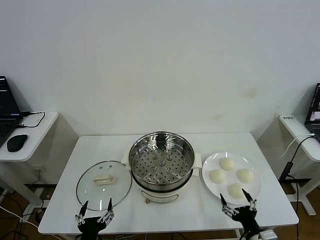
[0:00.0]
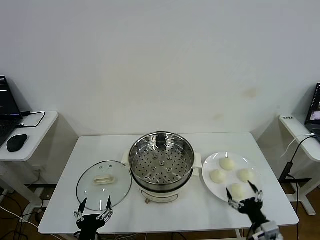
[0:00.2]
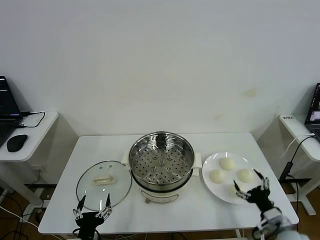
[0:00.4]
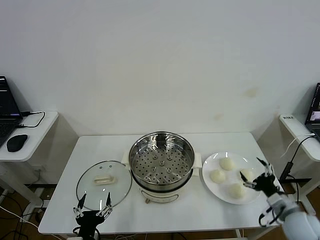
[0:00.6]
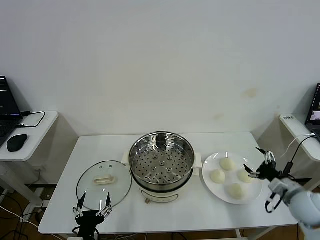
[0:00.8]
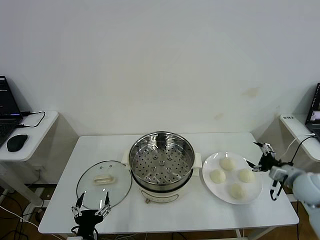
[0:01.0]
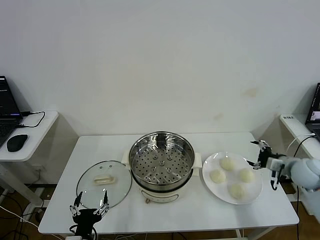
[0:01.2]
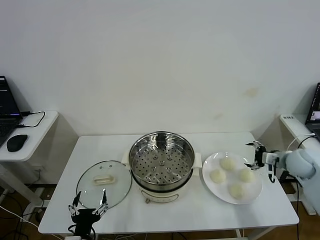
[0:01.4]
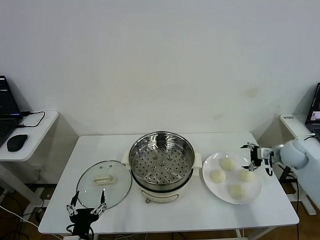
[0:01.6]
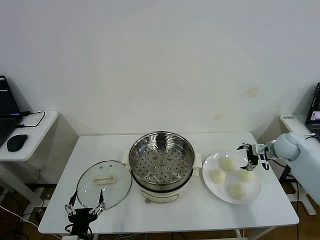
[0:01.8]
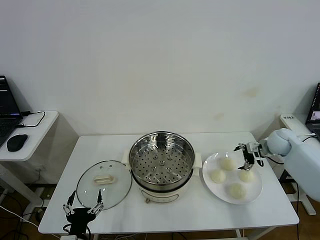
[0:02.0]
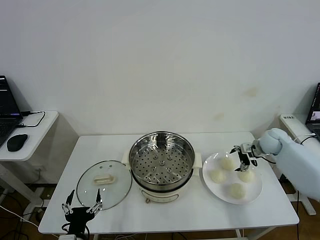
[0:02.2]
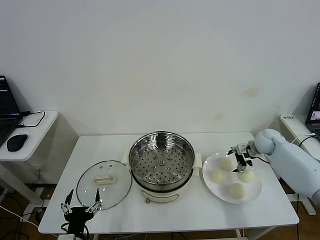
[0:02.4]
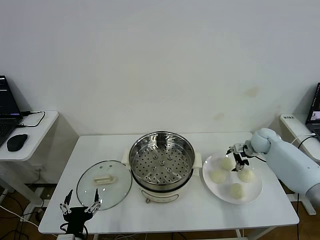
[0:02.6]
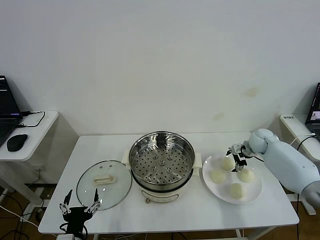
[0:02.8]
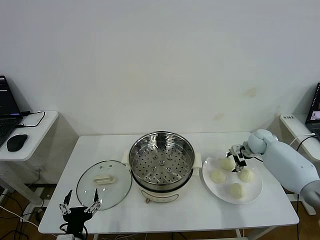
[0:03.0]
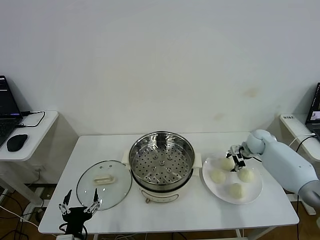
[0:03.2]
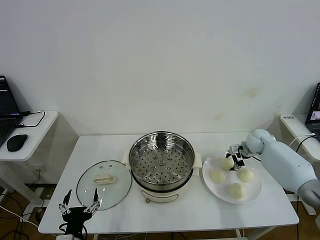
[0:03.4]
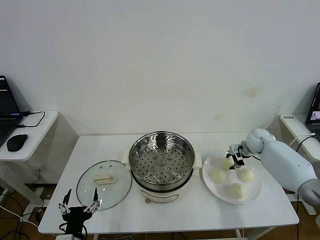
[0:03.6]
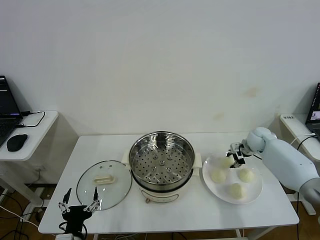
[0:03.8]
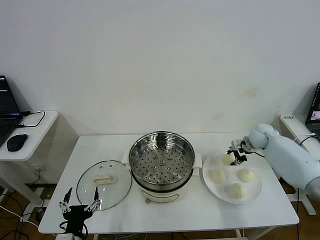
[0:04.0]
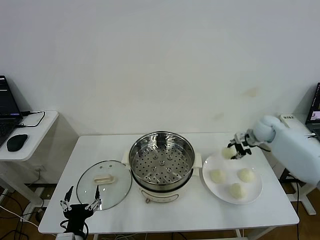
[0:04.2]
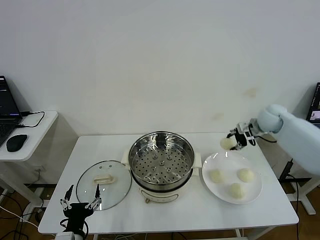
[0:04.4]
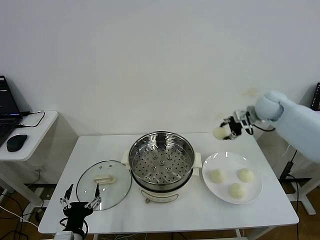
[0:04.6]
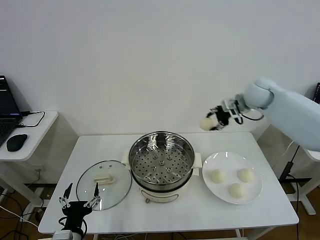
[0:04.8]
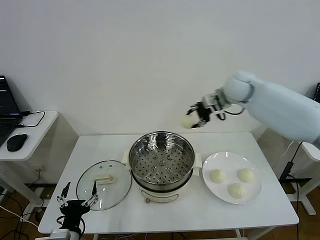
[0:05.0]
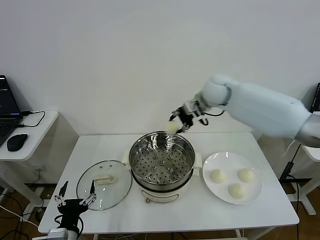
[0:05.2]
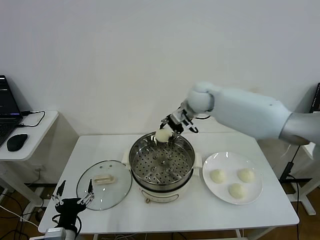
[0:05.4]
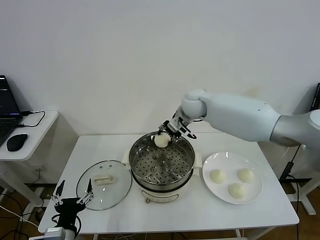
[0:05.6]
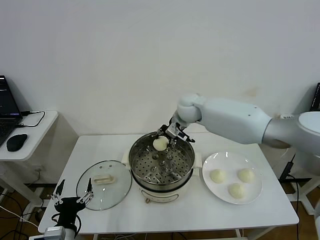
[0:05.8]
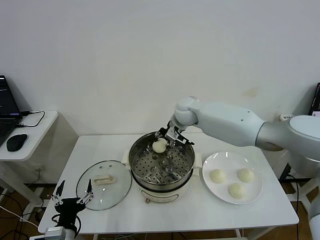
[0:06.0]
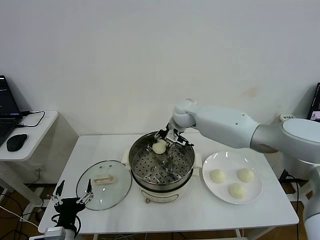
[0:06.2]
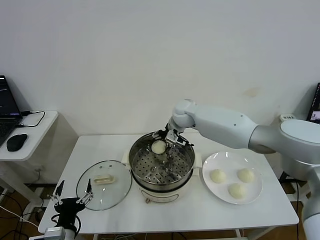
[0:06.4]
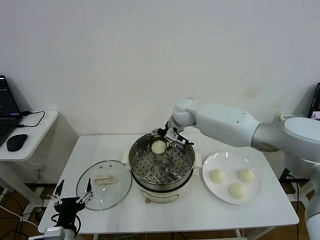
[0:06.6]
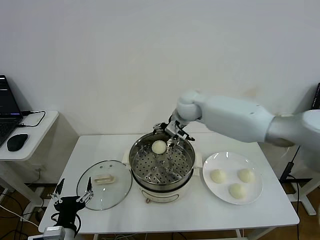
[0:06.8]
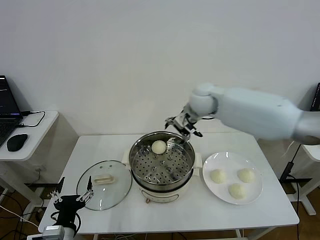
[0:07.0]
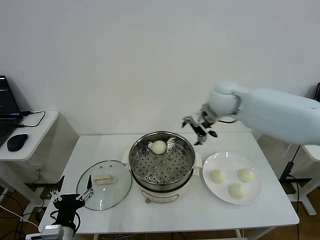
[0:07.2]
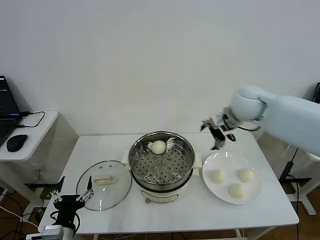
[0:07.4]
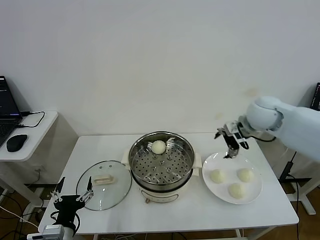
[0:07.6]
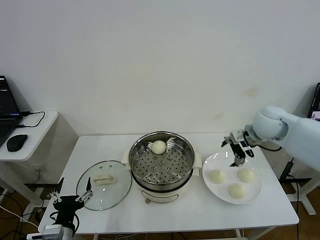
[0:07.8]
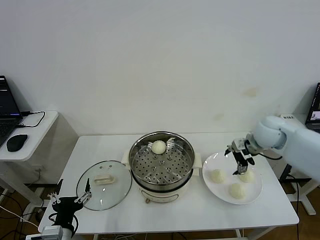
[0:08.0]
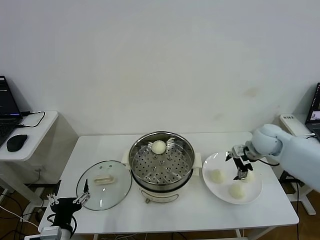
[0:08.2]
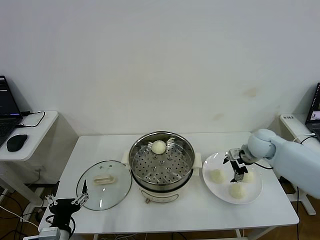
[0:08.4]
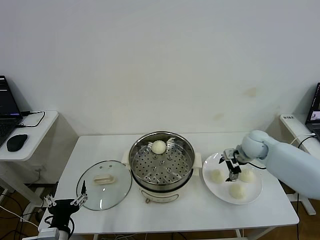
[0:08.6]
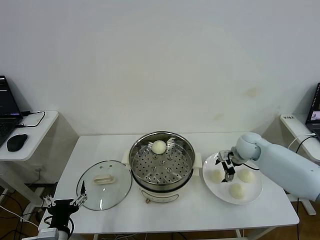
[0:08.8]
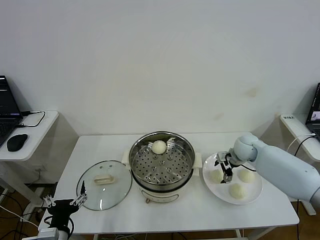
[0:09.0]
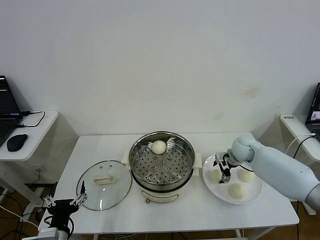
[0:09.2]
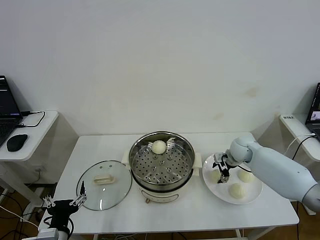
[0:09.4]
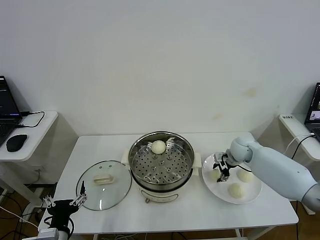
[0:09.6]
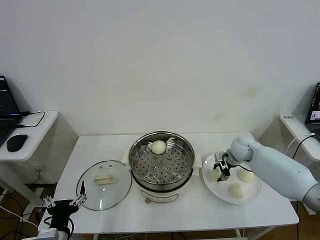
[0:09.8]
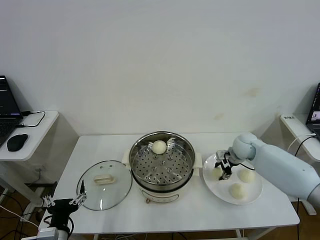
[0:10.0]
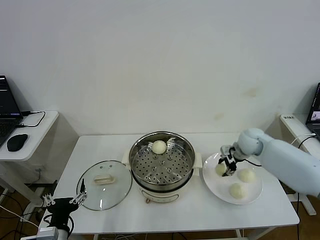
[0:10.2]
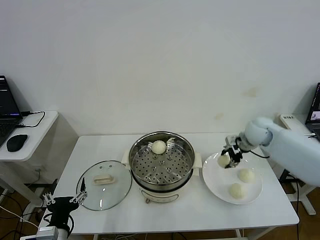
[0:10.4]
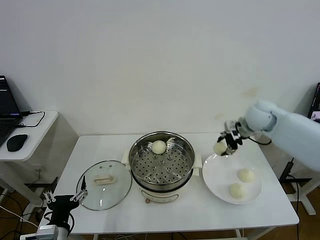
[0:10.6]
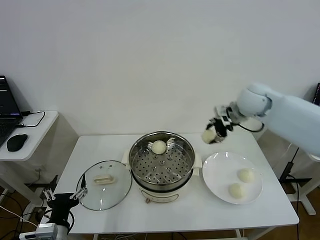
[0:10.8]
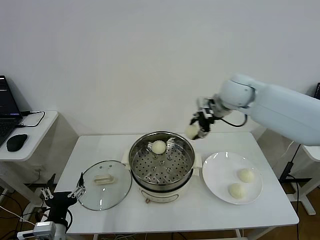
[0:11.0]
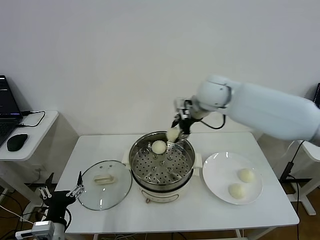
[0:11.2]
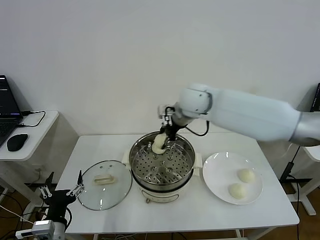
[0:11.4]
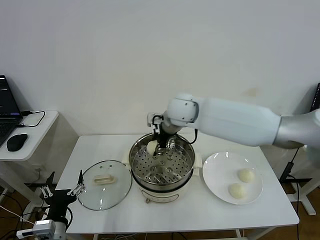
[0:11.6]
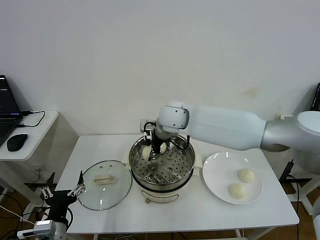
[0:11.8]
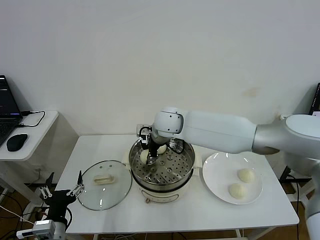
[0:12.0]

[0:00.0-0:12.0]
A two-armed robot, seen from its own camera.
Step, 0.0 to 3.6 s: Grasp the baozi in the plate with right gripper.
Step, 3.8 to 6.6 s: Place the baozi on the steamer with right gripper.
Step, 6.8 to 9.8 s: Grasp the baozi in the plate with right gripper.
1.6 to 3.0 s: The right gripper heads forward, to the left and downward, covering approximately 15 cm, and closes up.
3.0 to 4.4 s: The right gripper travels upward by approximately 15 cm, and closes its fingers.
4.4 to 6.0 s: The right gripper shifts some 30 cm to the left.
6.0 to 7.6 s: The right gripper goes approximately 25 cm to the right and backward, and opens up.
7.6 to 9.0 s: The right gripper shifts approximately 20 cm downward.
9.0 to 10.4 s: The right gripper shifts approximately 10 cm upward, and closes.
10.4 to 12.0 s: The right gripper is displaced to the left by some 30 cm.

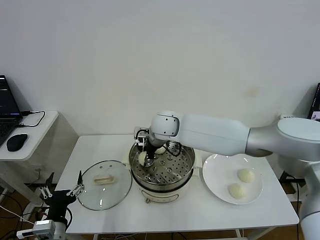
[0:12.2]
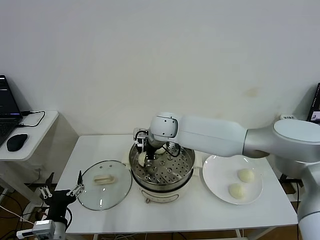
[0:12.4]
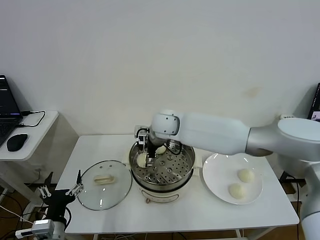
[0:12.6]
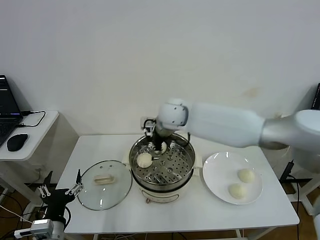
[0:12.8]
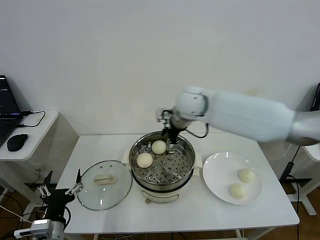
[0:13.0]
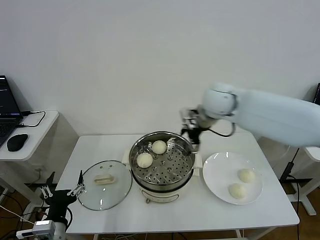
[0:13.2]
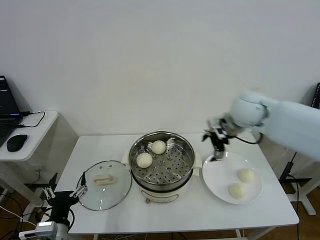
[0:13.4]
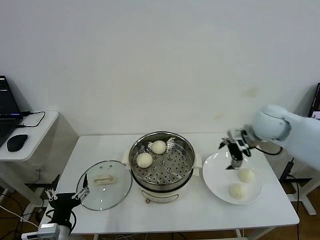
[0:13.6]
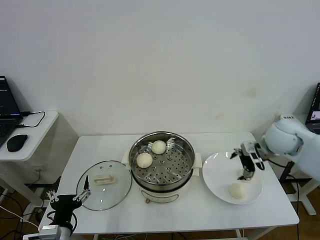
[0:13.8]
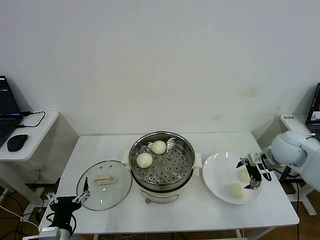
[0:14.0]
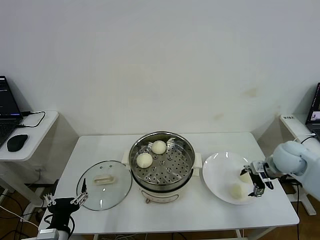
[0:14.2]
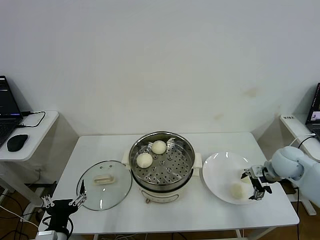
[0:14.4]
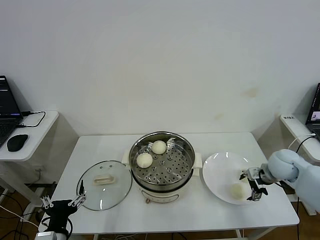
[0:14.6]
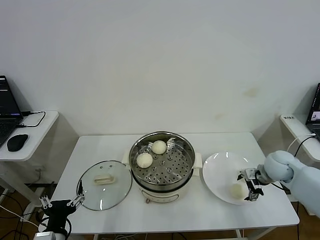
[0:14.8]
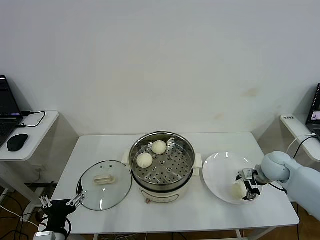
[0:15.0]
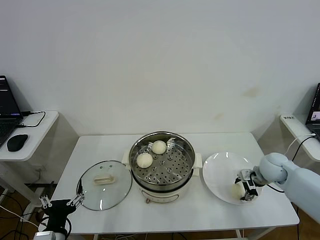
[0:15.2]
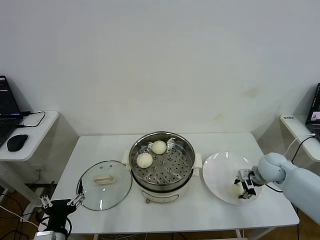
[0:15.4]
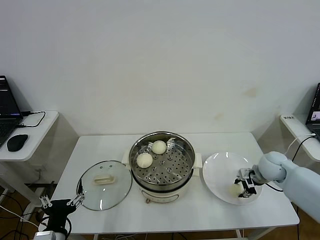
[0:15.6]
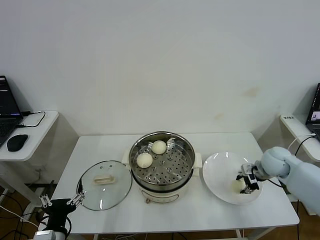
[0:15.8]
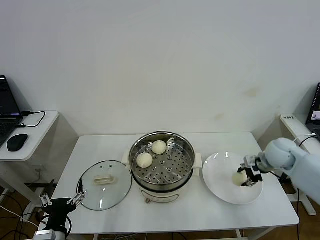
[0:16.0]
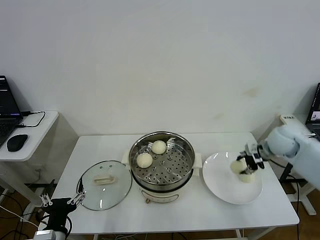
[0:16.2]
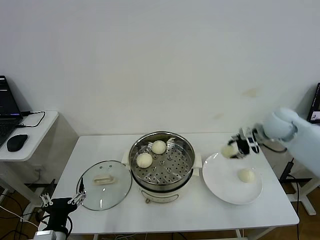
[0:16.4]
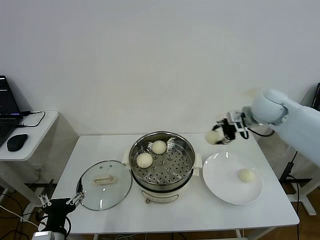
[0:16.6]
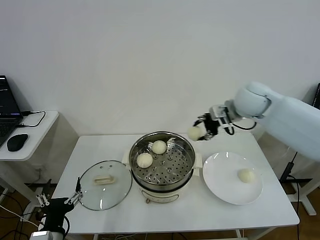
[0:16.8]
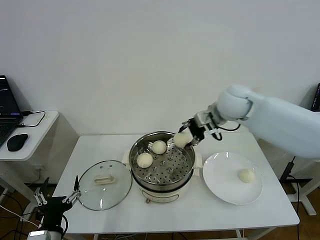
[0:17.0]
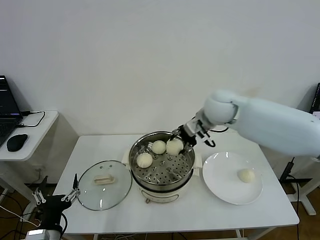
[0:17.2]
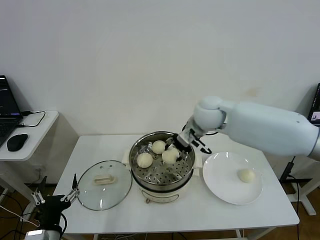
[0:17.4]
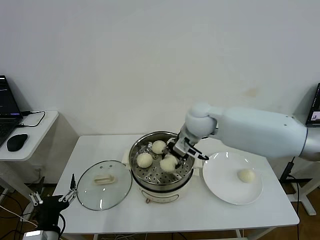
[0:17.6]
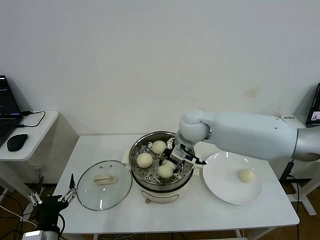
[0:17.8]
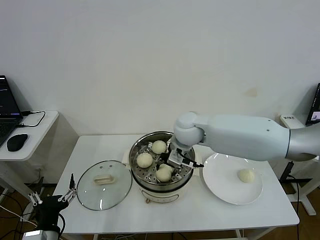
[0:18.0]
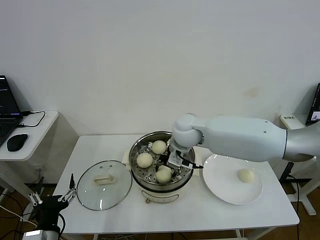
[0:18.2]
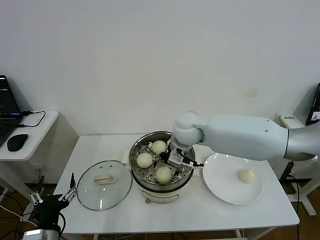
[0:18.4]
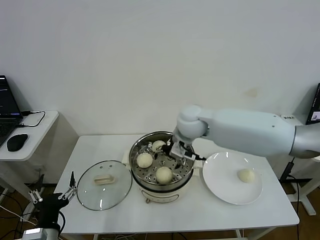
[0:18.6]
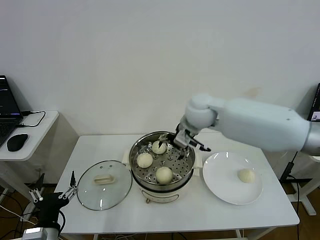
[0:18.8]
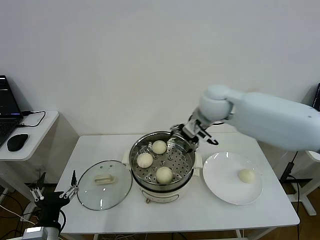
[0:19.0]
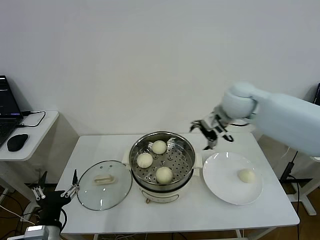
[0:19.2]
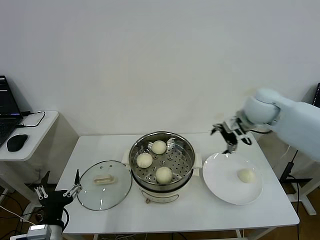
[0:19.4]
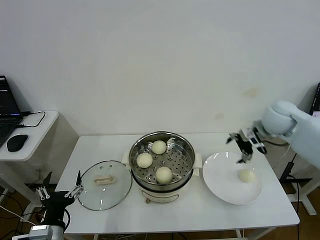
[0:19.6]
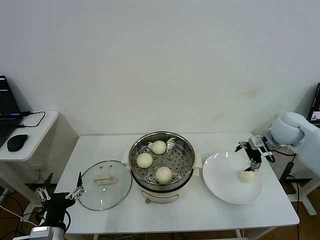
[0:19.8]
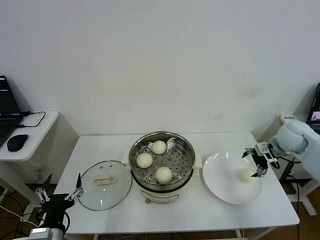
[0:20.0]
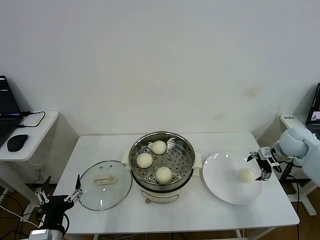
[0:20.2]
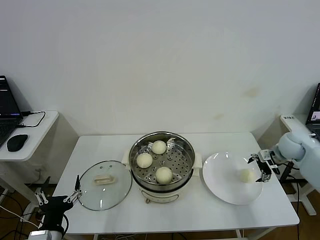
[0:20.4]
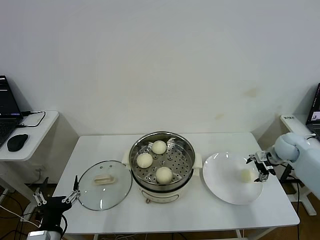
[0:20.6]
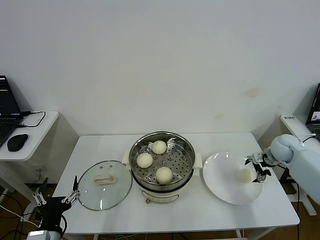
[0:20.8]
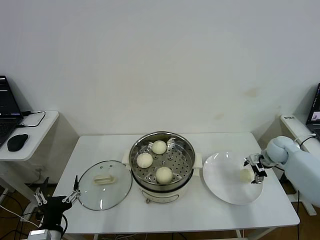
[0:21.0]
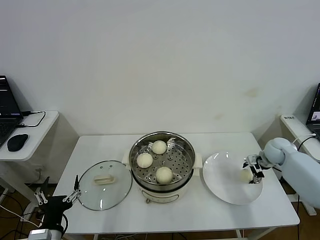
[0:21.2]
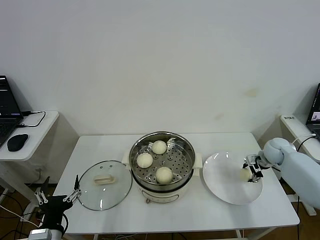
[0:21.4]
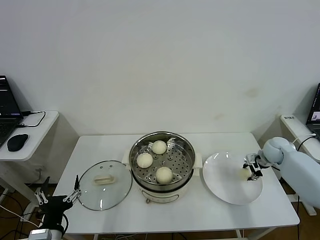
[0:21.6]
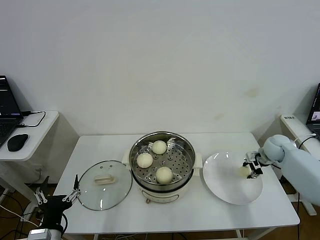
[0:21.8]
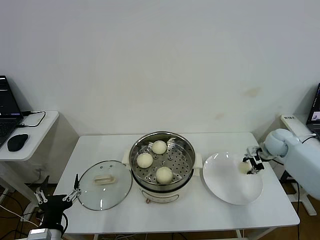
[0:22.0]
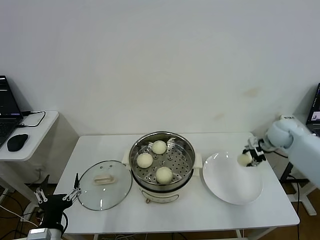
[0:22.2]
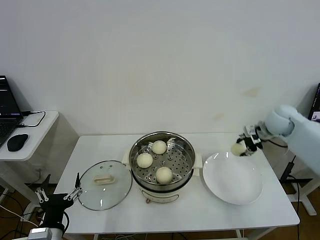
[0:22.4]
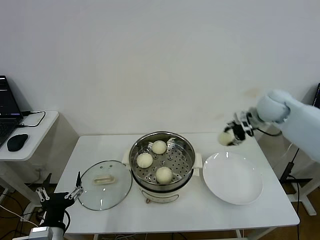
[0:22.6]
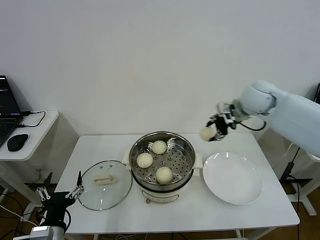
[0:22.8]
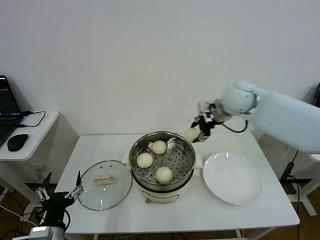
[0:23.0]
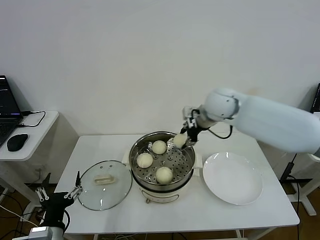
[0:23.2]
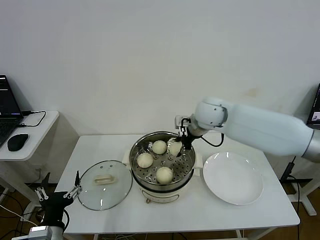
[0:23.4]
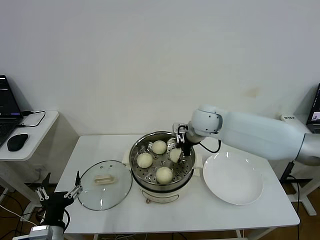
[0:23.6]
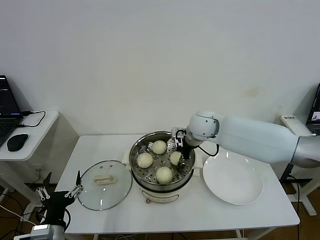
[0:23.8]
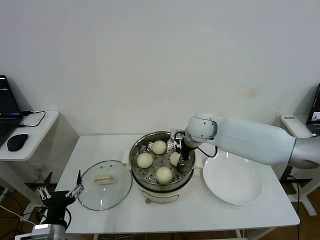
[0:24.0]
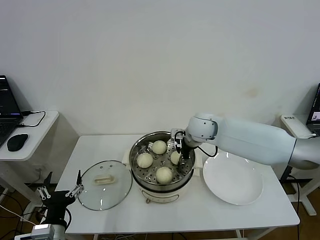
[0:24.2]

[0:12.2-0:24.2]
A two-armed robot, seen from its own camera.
Step, 12.8 to 15.2 s: Grasp the baozi in the plate with right gripper.
Step, 15.6 to 18.4 s: Place the baozi on the steamer with right gripper.
Step, 18.6 to 21.6 s: Grasp the baozi in the plate with right gripper.
12.2 to 13.8 s: The right gripper is displaced to the right by approximately 35 cm, and opens up.
13.8 to 15.2 s: The right gripper heads downward, covering roughly 15 cm, and closes.
15.2 to 16.6 s: The right gripper moves upward, about 20 cm, and closes up.
16.6 to 18.2 s: The right gripper goes some 25 cm to the left.
18.2 to 19.8 s: The right gripper moves to the right, some 30 cm, and opens up.
19.8 to 21.2 s: The right gripper moves downward, some 15 cm.
21.2 to 22.6 s: The right gripper heads upward and to the left, covering approximately 20 cm, and closes up.
22.6 to 24.2 s: The right gripper heads to the left, covering some 20 cm.
